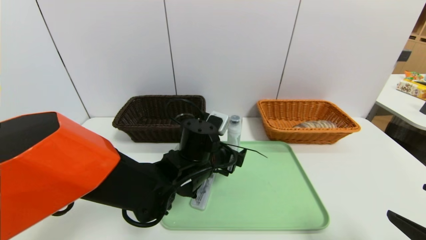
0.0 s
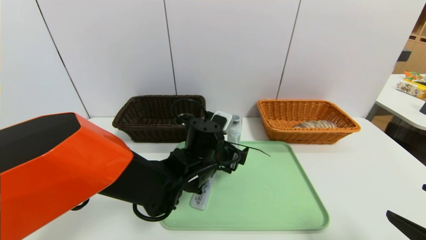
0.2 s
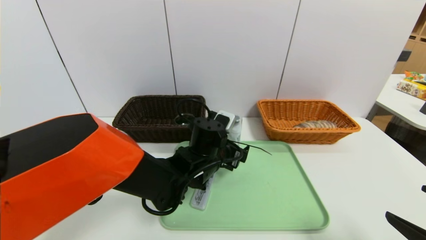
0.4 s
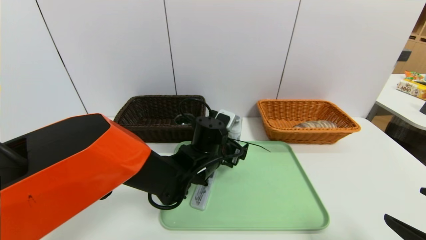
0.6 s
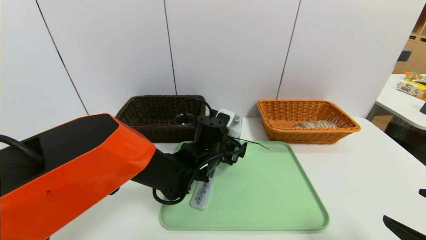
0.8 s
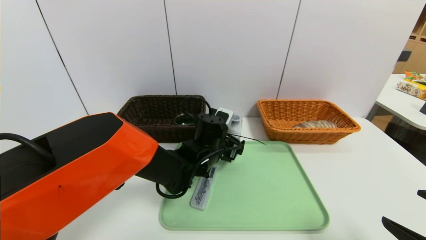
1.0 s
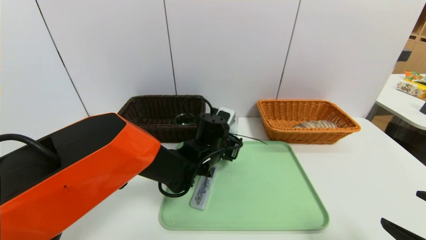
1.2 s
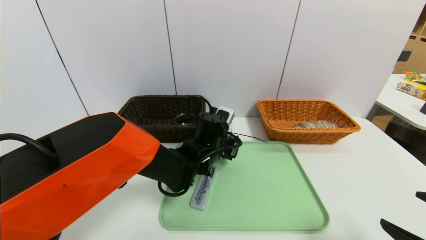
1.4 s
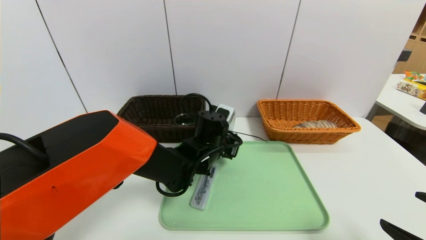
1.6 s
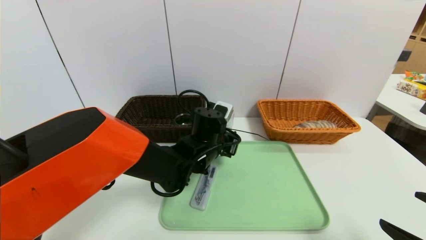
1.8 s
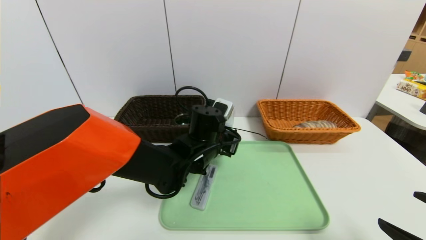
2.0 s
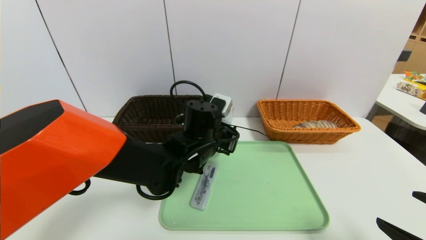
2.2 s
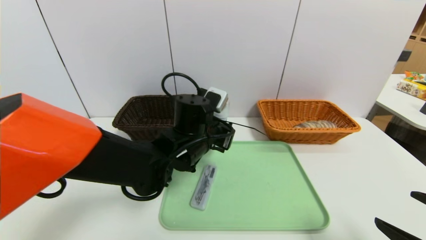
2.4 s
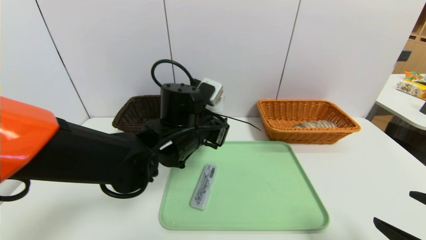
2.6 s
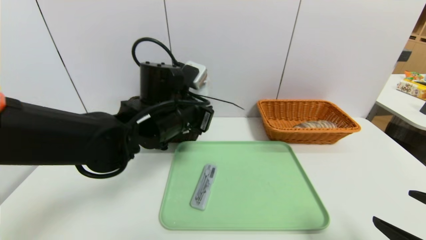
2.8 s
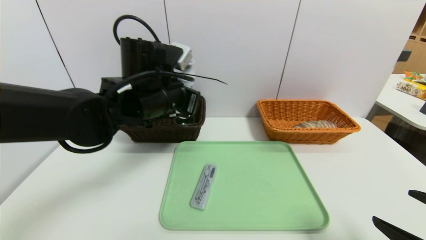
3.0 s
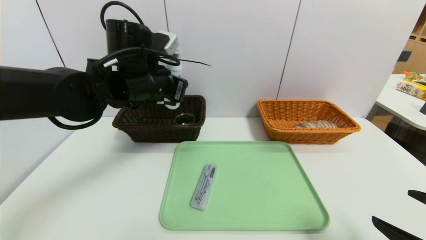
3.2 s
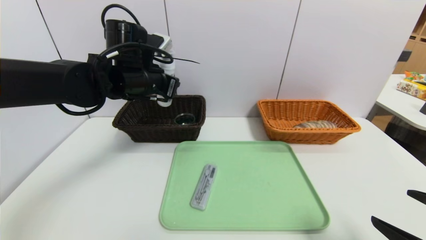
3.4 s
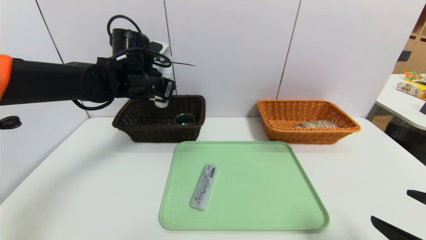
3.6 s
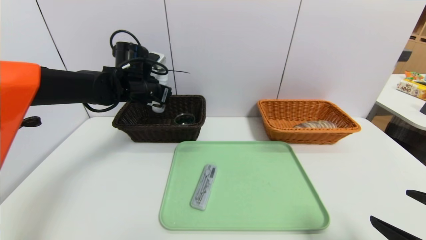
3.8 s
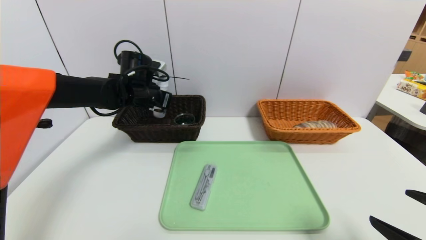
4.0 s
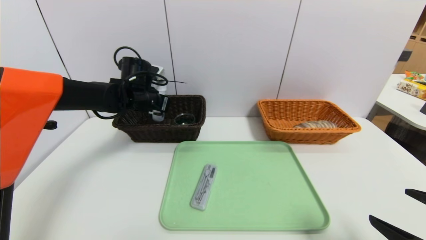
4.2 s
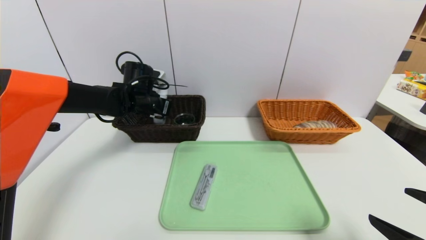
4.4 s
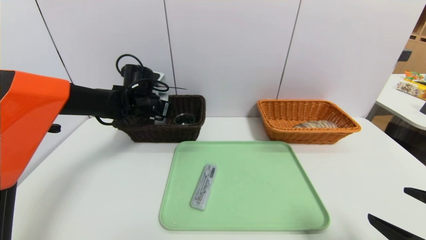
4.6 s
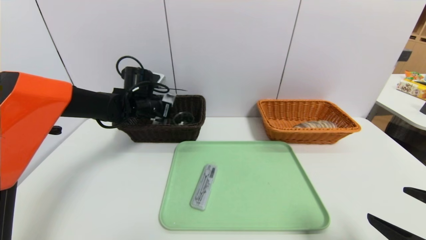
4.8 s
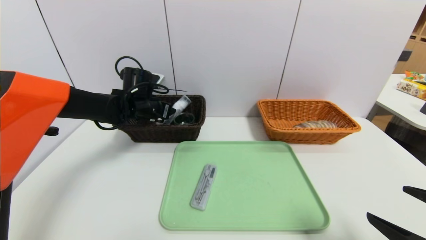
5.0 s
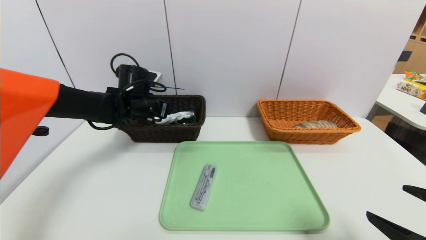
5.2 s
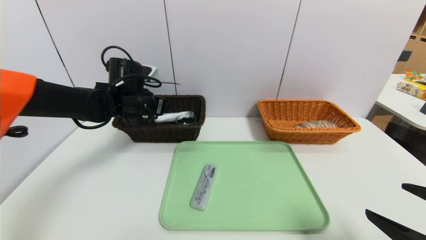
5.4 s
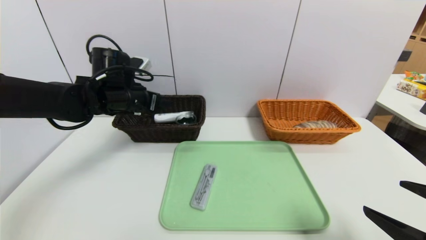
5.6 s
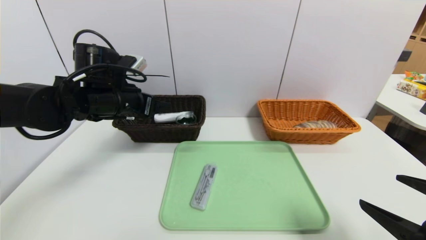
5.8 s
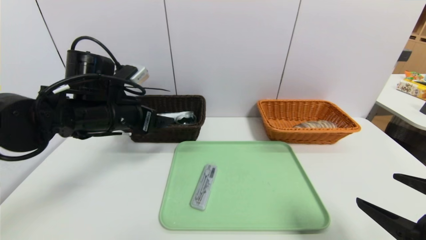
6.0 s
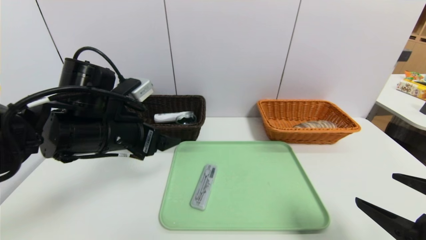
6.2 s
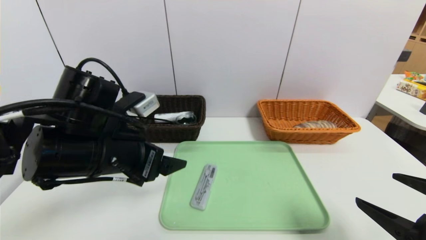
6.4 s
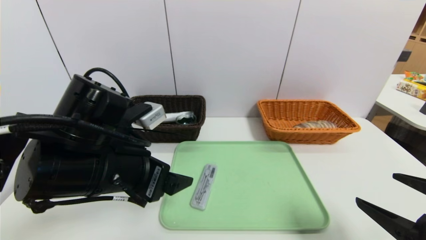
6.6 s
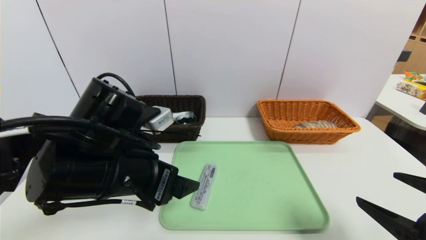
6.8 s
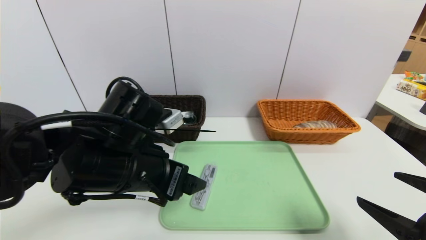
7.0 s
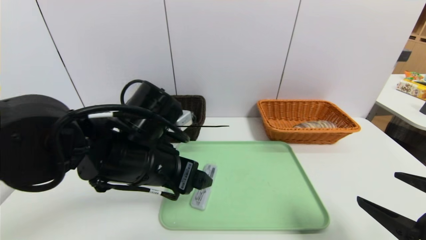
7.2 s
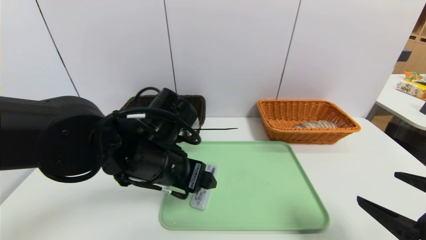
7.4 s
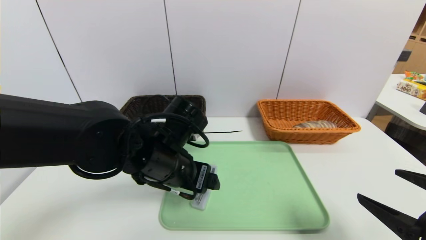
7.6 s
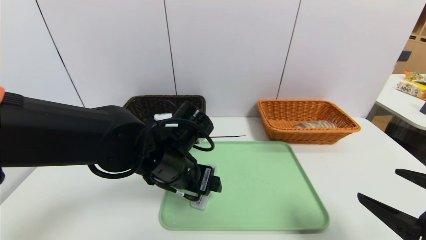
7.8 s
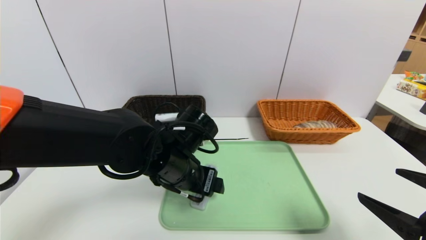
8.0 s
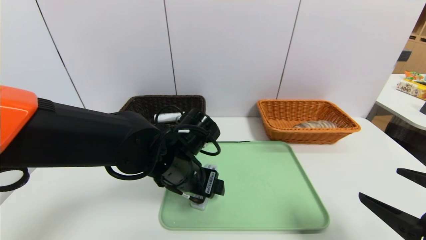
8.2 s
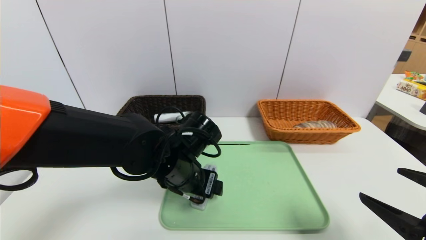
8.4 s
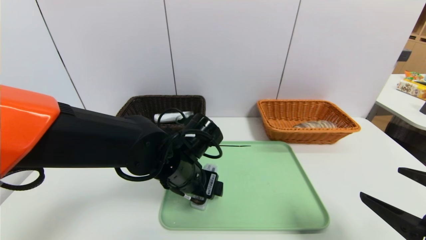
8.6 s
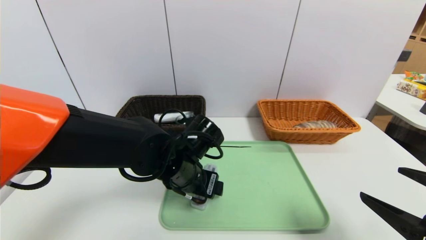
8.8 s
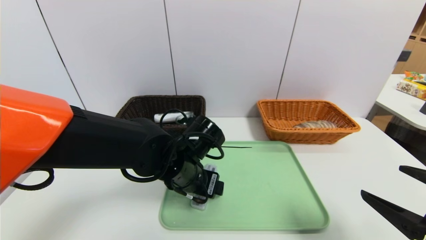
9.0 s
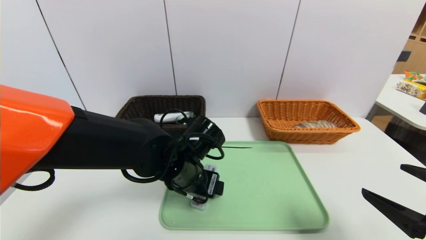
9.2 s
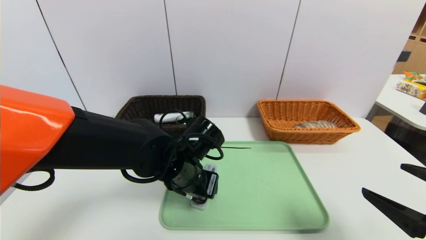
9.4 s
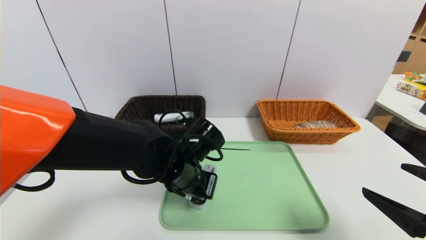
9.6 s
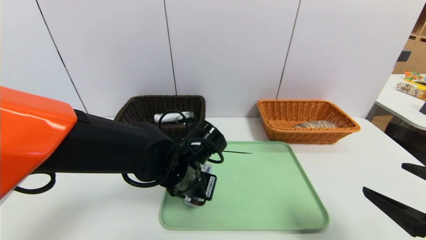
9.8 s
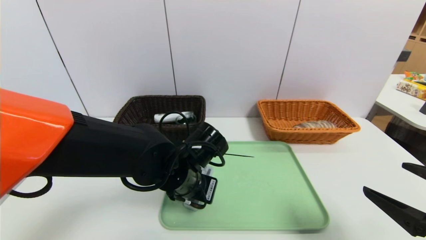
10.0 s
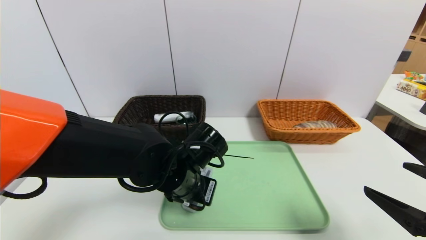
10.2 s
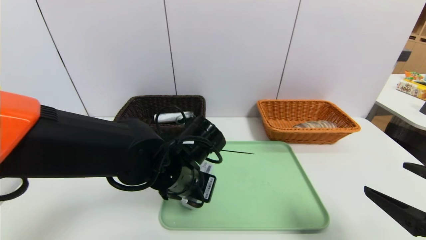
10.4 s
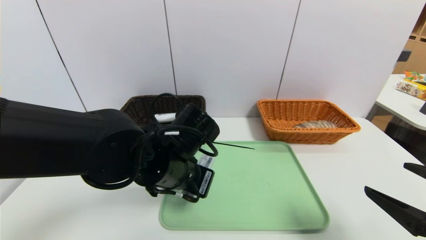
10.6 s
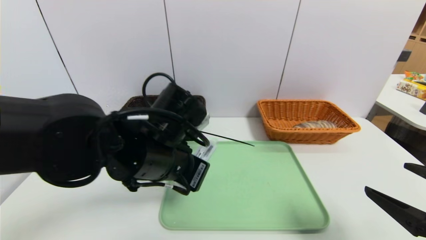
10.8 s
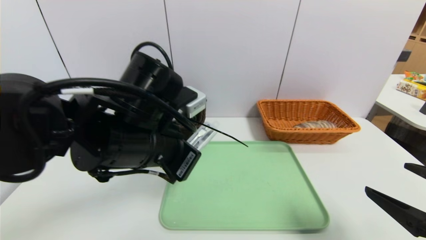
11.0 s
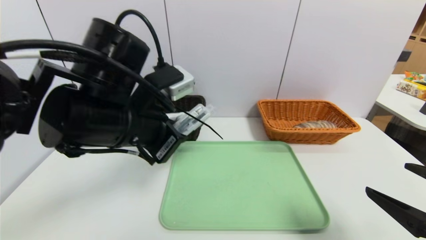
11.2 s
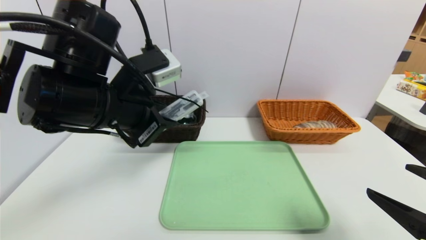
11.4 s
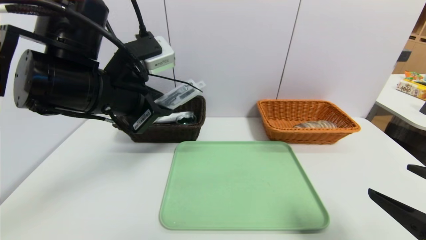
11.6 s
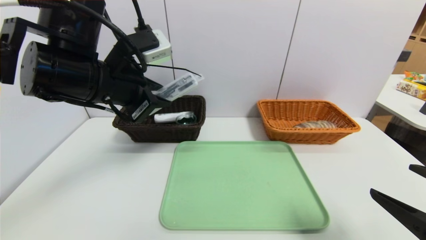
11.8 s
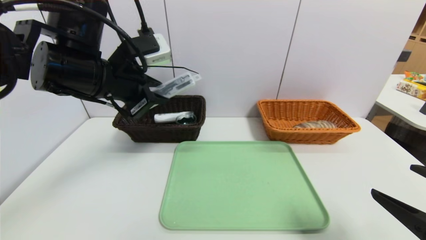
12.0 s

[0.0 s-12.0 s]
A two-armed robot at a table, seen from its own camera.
Task of the whole recording: place the food in the right basket with the right gripper, and place the non food items in the left basket with the left gripper.
Step, 0.0 to 5.2 s: Grasp the washing liquid and put it in the left basket.
0.0 to 1.6 s: The left gripper goes some 5 cm forward, and closes.
1.6 to 3.0 s: The left gripper shifts some 20 cm upward and to the left.
3.0 to 4.4 s: The left gripper travels forward, to the left and downward by approximately 15 cm.
4.4 to 6.0 s: The left gripper heads backward, covering approximately 15 cm, and opens up.
6.0 to 7.6 s: The left gripper travels to the right by about 10 cm.
7.6 to 9.0 s: The left gripper shifts by approximately 5 cm.
9.0 to 10.4 s: The left gripper closes.
10.4 to 12.0 s: The left gripper is displaced upward and to the left by some 20 cm.

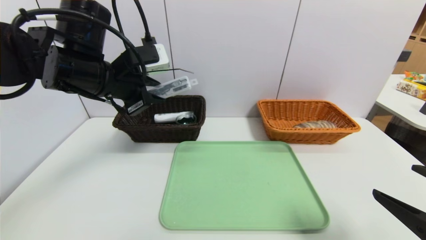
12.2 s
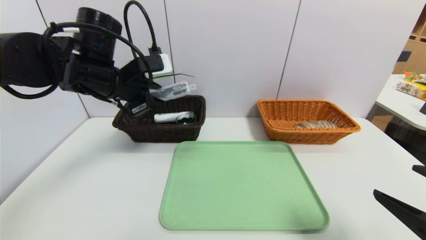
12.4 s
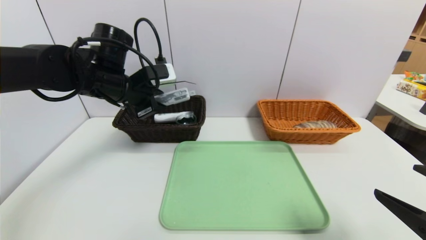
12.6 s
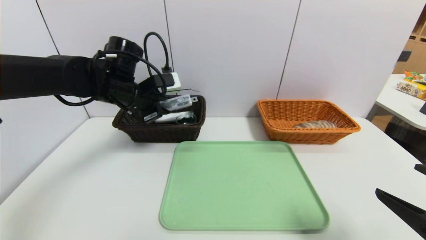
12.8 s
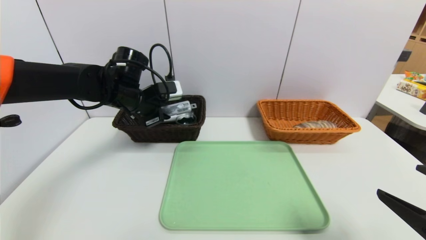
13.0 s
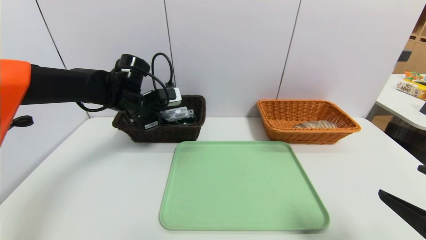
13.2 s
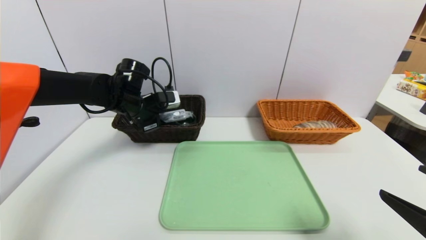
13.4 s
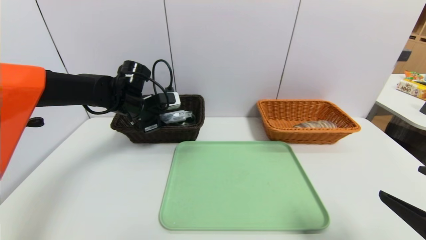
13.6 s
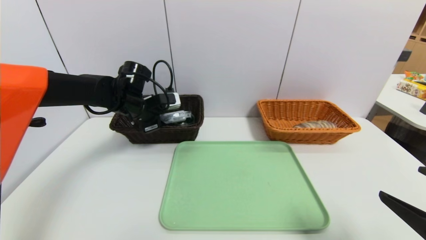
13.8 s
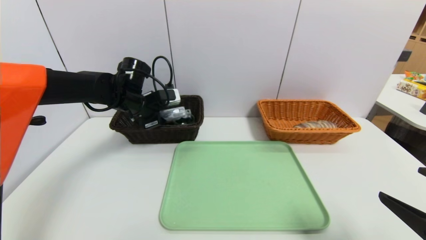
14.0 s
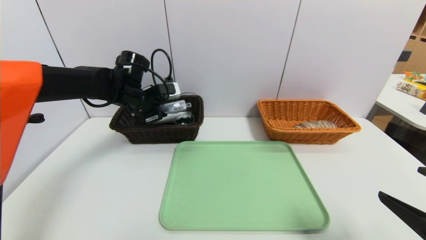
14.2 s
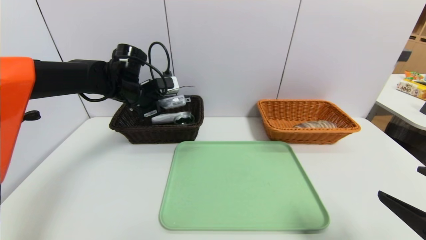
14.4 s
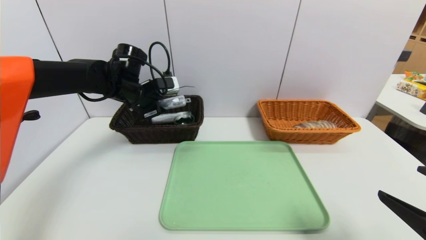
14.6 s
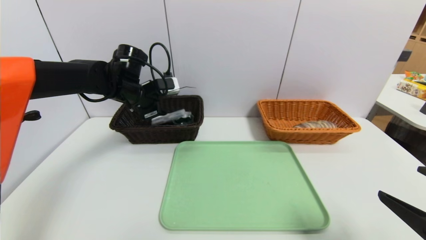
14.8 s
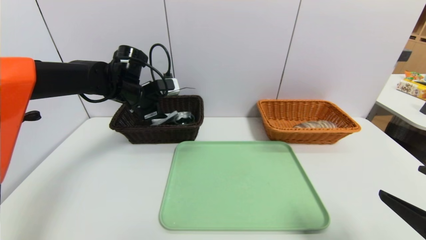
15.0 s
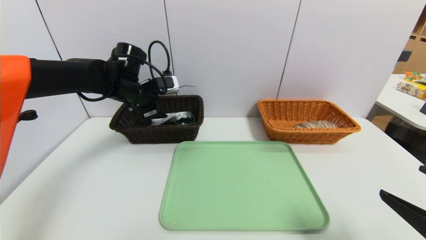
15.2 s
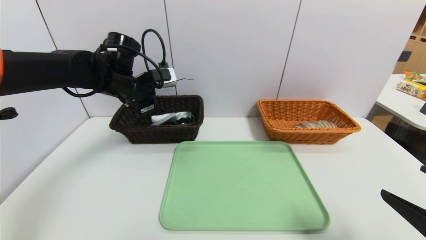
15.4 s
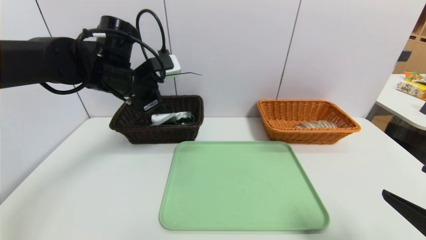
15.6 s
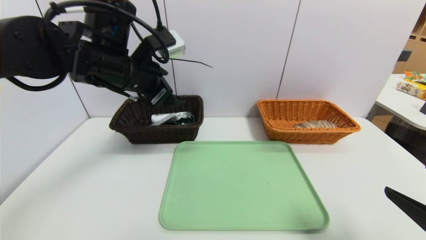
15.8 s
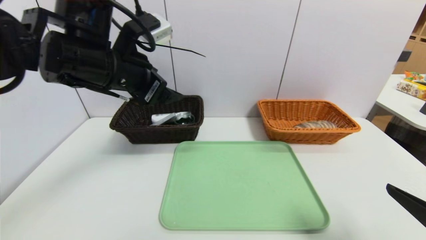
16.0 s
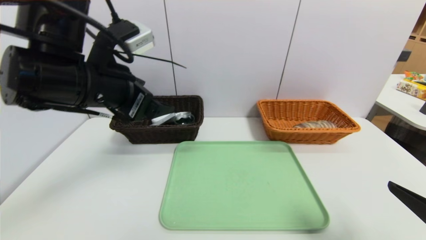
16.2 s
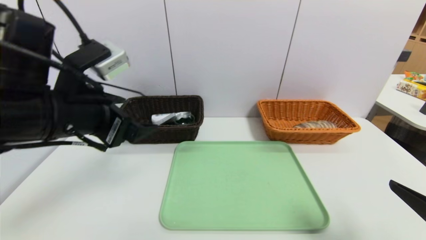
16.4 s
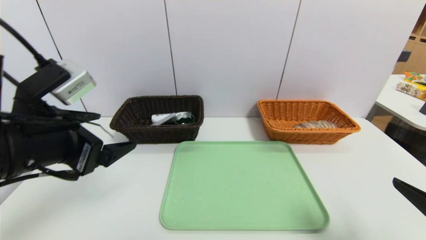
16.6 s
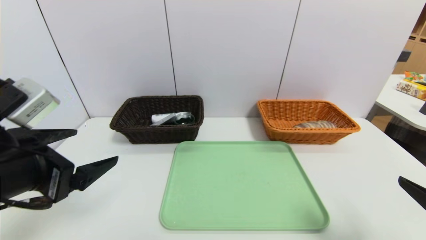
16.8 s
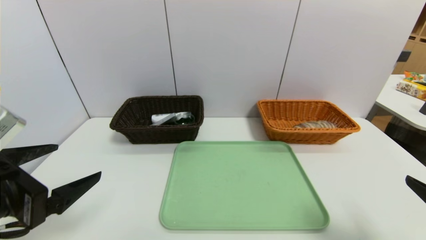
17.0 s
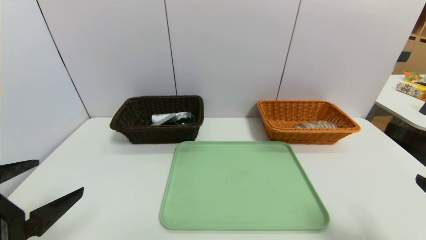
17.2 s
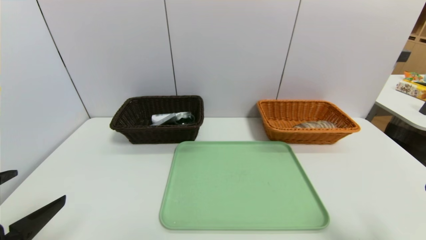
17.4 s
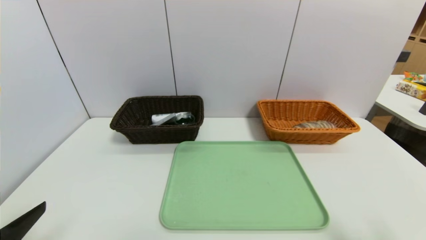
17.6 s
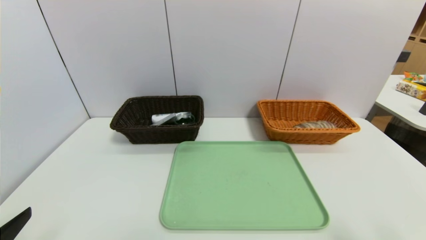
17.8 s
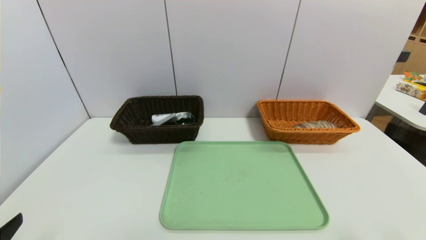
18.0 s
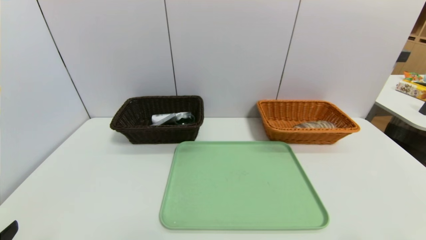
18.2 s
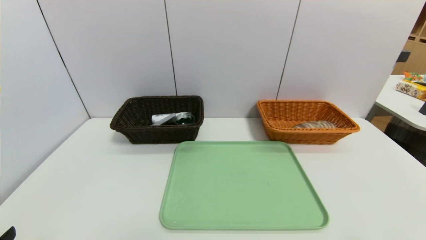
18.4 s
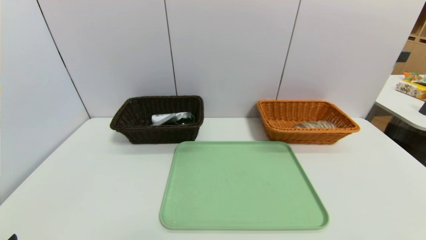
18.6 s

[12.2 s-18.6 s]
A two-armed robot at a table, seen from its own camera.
Task of the whole recording: place the food in the right basket with the right gripper, and place the non food items in the left basket with the left gripper.
Step, 12.2 to 15.2 s: Grasp the compass and put it in the left basket.
12.2 to 13.8 s: The left gripper goes about 15 cm forward and downward.
13.8 to 15.4 s: The left gripper shifts approximately 5 cm upward, and opens up.
15.4 to 17.0 s: The left gripper goes some 30 cm backward.
17.0 to 18.6 s: The right gripper shifts some 5 cm backward; the left gripper travels backward and downward by about 15 cm.
